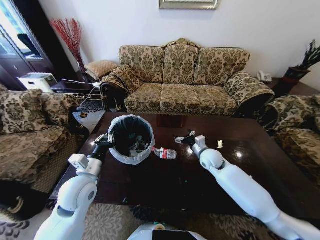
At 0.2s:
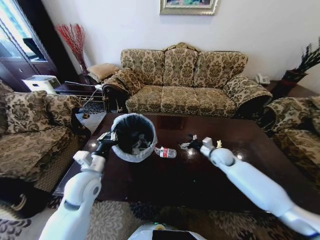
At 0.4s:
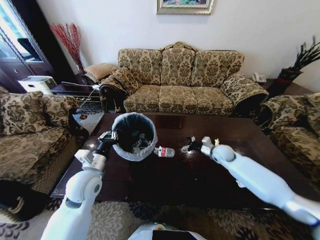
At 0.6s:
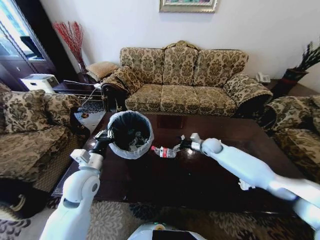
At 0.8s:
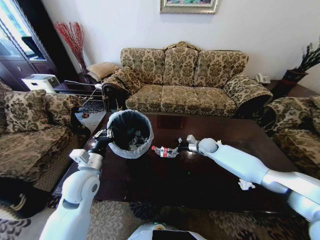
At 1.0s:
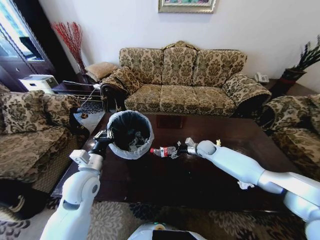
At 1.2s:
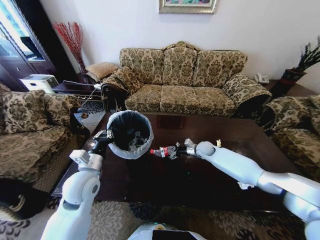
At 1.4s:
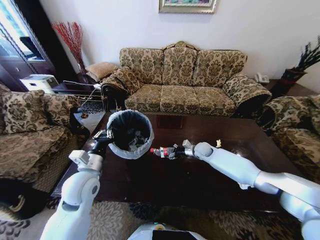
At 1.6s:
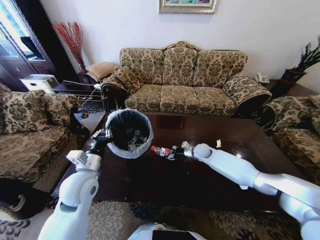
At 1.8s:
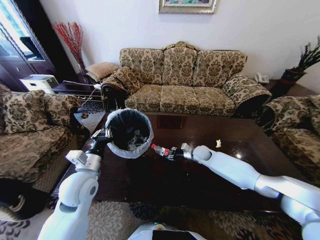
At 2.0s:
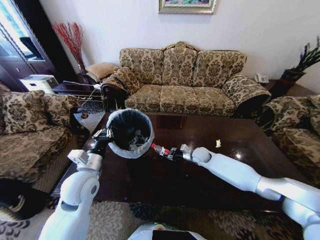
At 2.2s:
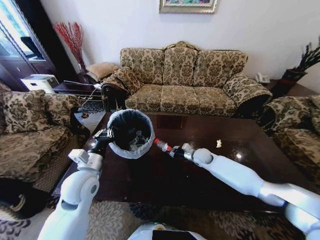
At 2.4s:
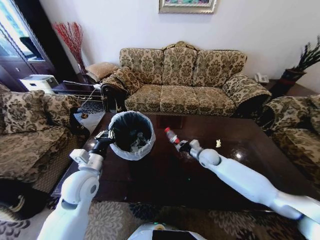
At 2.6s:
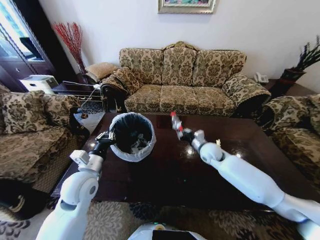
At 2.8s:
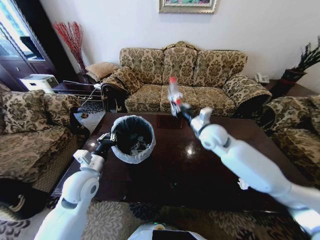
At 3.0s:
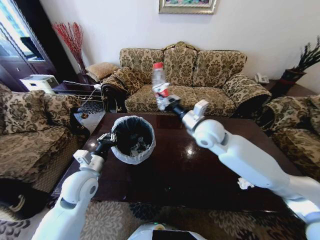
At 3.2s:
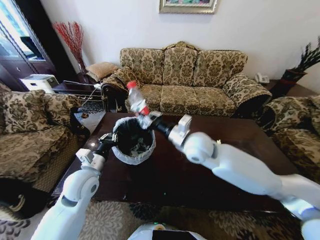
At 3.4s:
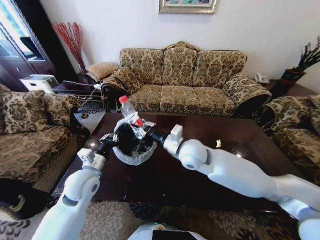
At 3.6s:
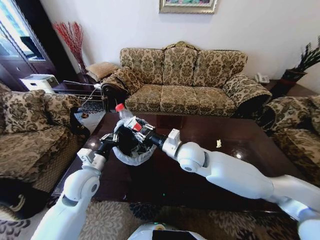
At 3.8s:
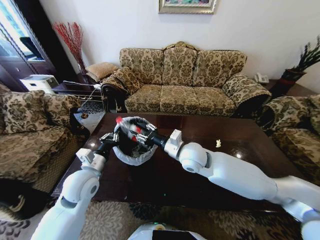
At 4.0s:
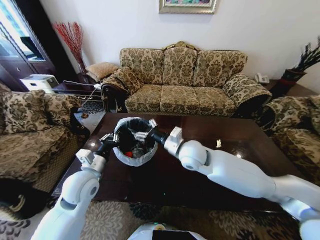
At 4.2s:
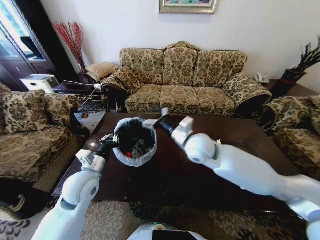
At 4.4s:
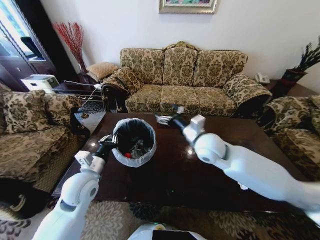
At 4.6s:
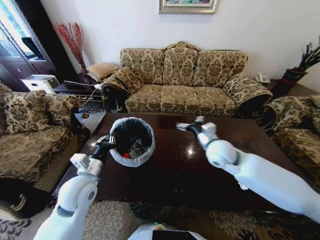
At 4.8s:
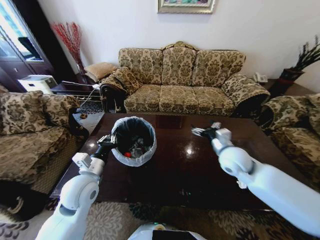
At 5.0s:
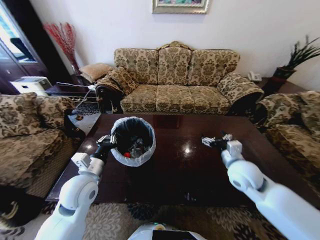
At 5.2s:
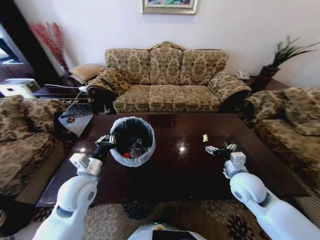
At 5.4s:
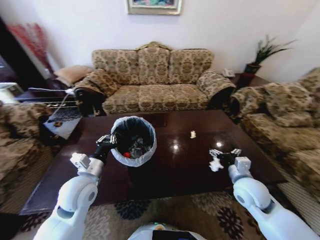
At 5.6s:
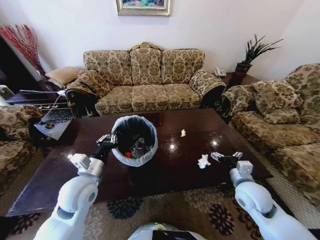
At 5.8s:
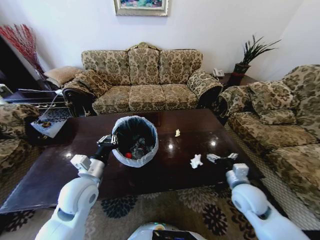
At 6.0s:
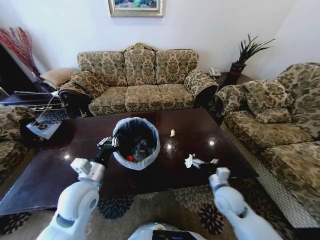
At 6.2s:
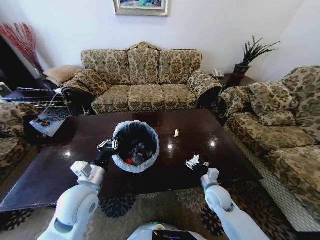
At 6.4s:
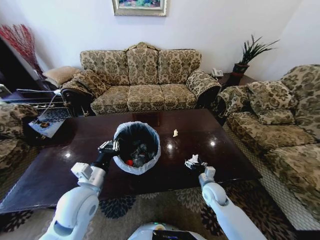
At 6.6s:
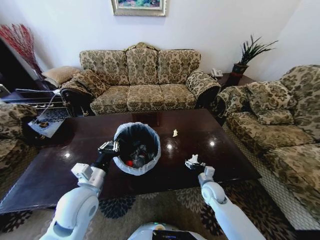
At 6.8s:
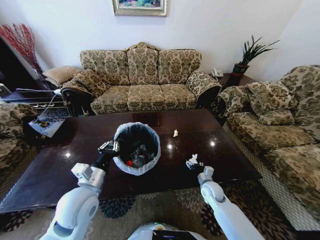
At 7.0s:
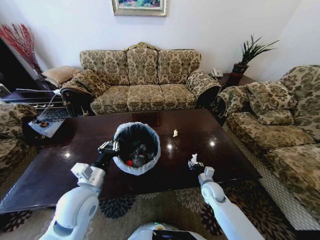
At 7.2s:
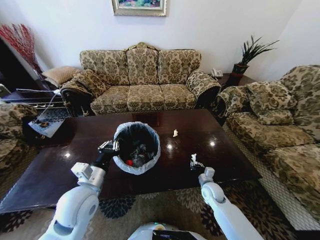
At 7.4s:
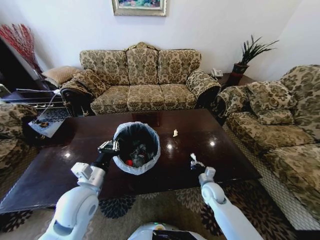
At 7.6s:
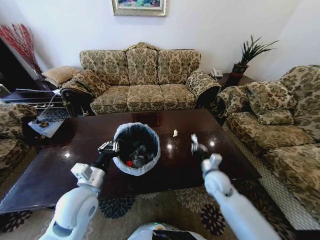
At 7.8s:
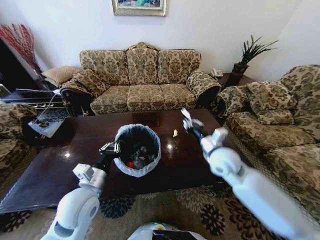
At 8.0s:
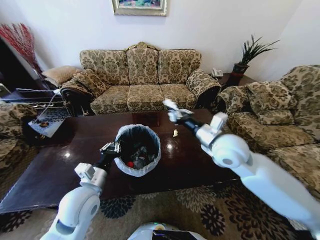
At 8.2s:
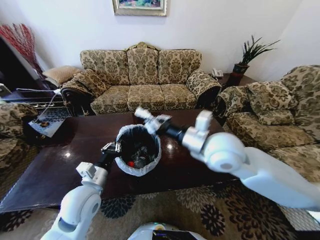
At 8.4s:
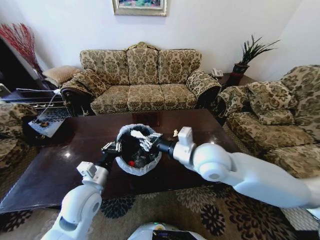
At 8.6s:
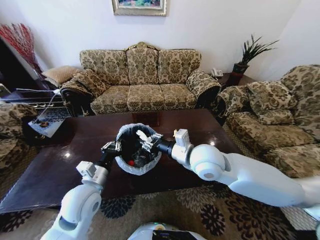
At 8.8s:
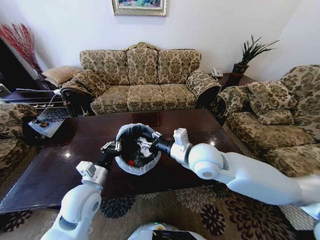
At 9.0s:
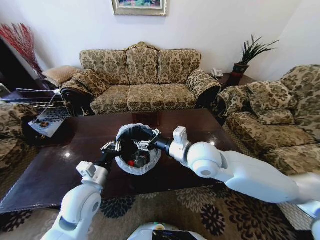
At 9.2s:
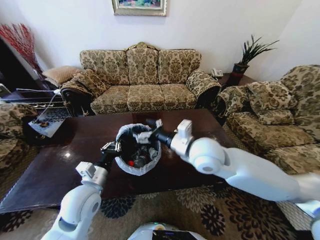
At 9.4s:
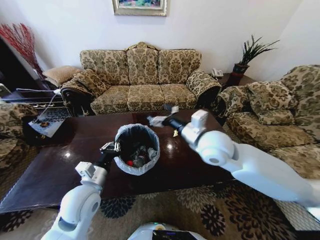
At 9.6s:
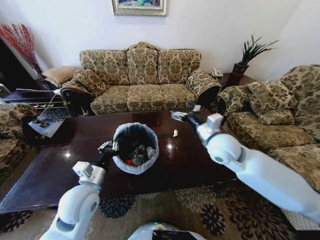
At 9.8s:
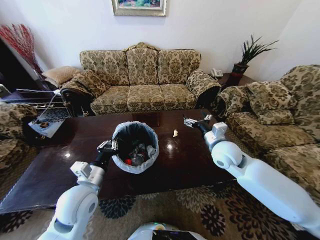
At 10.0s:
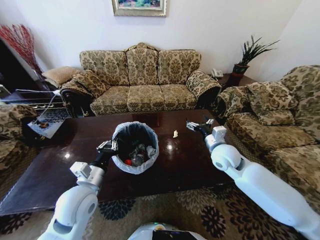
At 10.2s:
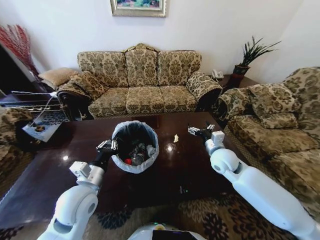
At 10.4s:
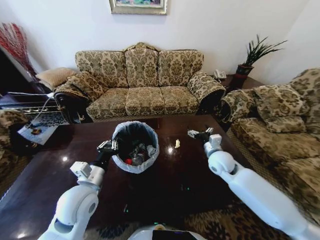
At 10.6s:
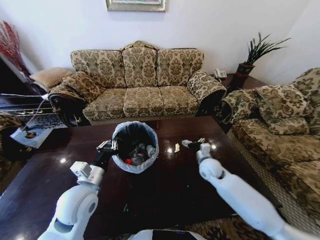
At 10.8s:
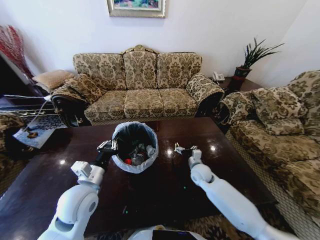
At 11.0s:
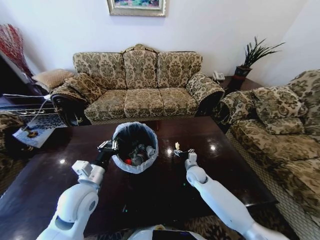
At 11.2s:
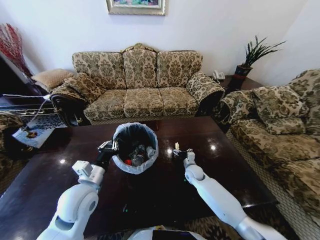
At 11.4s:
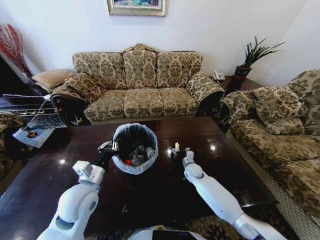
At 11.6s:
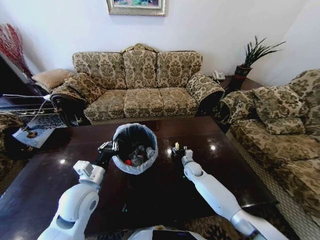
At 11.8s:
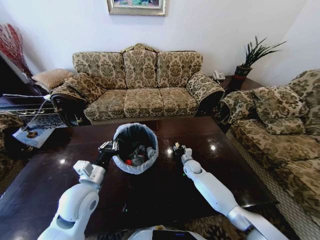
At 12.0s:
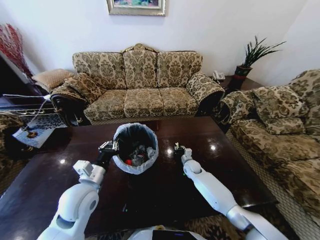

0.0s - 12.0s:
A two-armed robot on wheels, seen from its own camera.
Task of the whole recording: Move to the front of the table and place the trash on the table into the trash bin.
0.0s - 1.6s: The right gripper heads forward and downward, covering roughly 10 cm.
1.6s - 3.0s: The right gripper heads upward and backward, covering roughly 25 cm, and closes up.
3.0s - 4.4s: The right gripper opens its fingers.
4.4s - 6.0s: The right gripper shifts some 25 cm downward, backward and to the right.
6.0s - 7.6s: The right gripper travels forward by roughly 5 cm, reaches approximately 10 cm downward, then returns, and closes.
7.6s - 9.0s: The right gripper is displaced upward and to the left by roughly 25 cm, and opens up.
9.0s - 10.4s: The right gripper shifts approximately 20 cm downward, to the right and forward.
10.4s - 12.0s: The right gripper is displaced downward by roughly 20 cm, and closes.

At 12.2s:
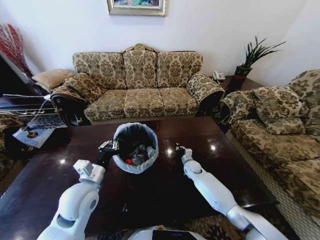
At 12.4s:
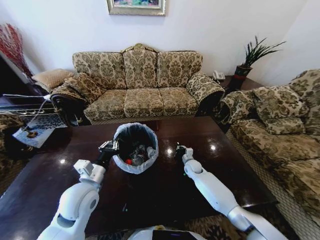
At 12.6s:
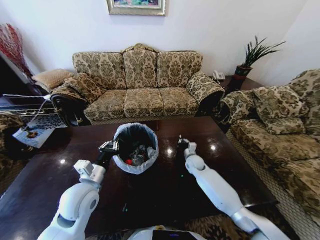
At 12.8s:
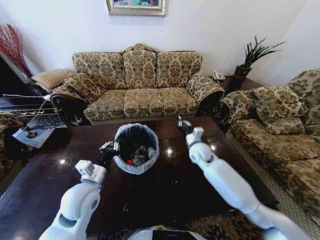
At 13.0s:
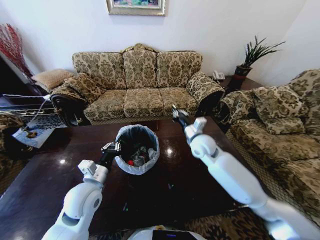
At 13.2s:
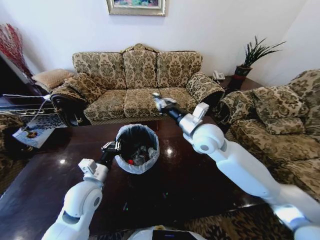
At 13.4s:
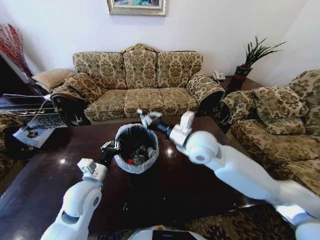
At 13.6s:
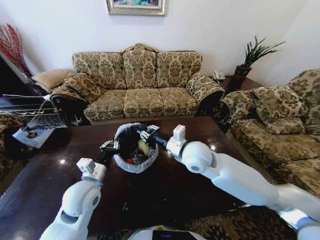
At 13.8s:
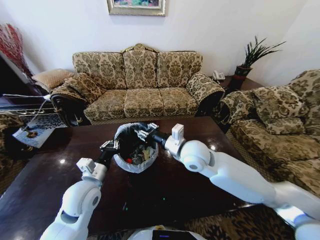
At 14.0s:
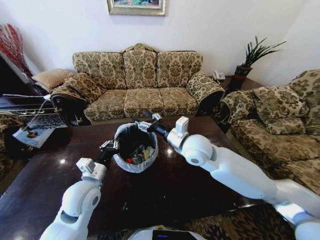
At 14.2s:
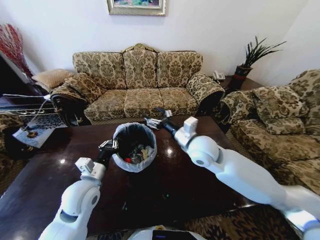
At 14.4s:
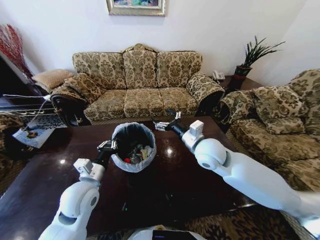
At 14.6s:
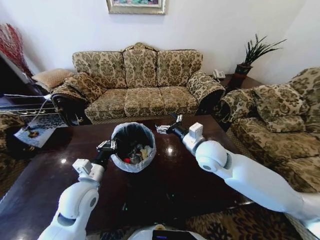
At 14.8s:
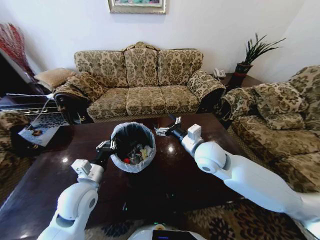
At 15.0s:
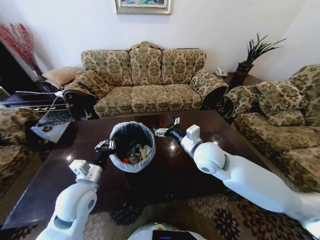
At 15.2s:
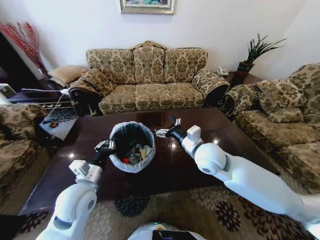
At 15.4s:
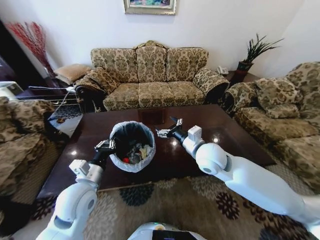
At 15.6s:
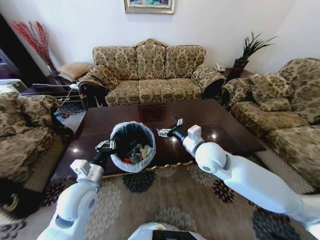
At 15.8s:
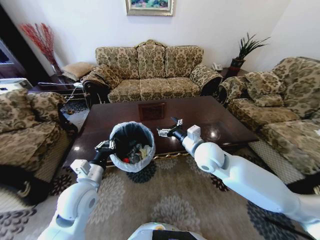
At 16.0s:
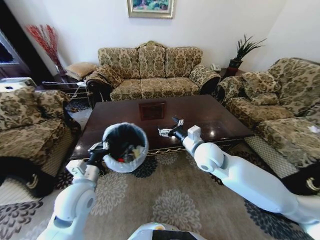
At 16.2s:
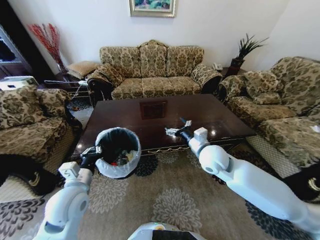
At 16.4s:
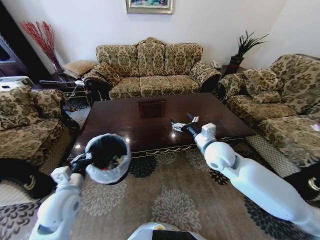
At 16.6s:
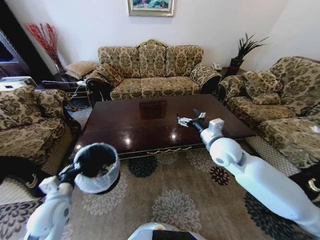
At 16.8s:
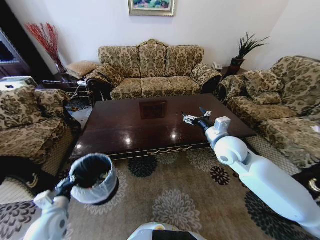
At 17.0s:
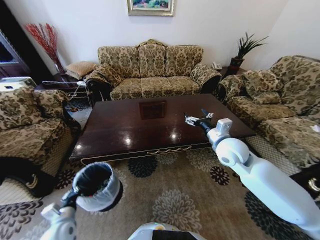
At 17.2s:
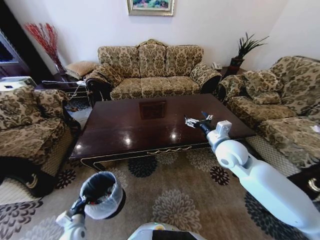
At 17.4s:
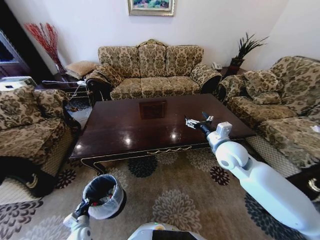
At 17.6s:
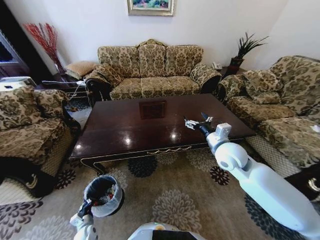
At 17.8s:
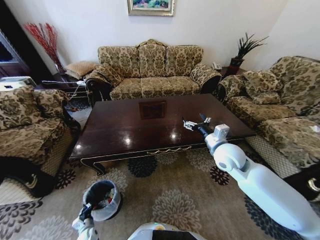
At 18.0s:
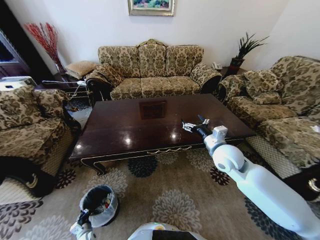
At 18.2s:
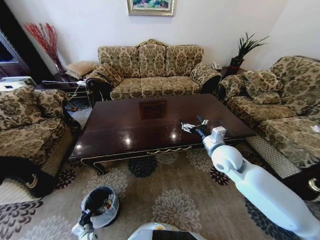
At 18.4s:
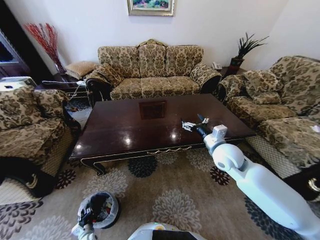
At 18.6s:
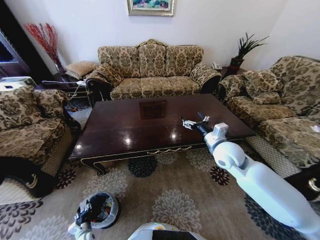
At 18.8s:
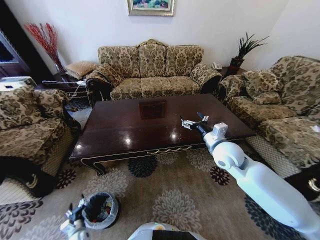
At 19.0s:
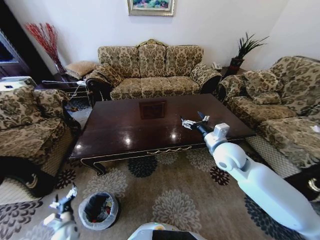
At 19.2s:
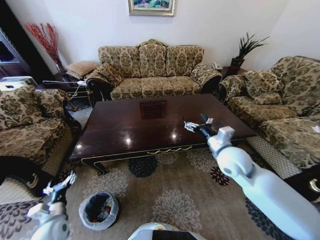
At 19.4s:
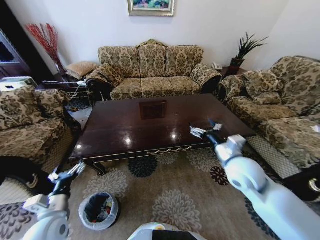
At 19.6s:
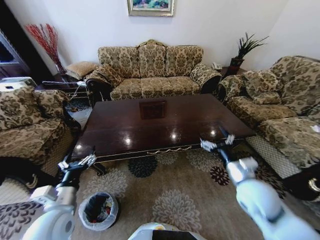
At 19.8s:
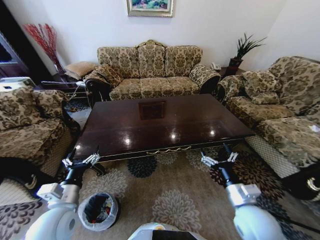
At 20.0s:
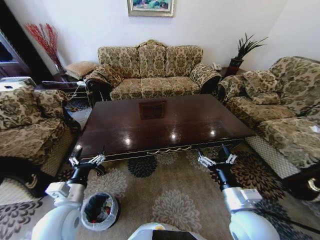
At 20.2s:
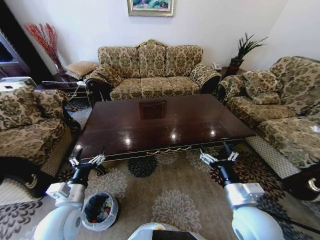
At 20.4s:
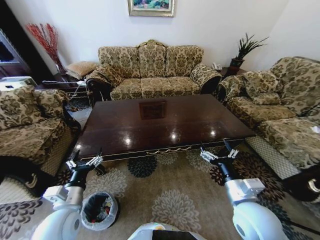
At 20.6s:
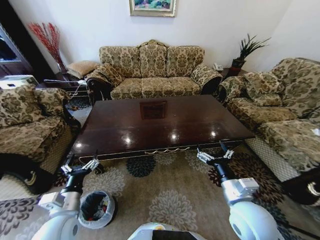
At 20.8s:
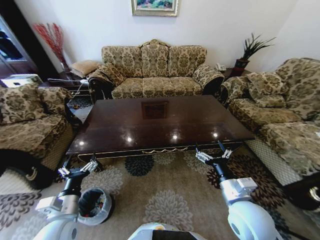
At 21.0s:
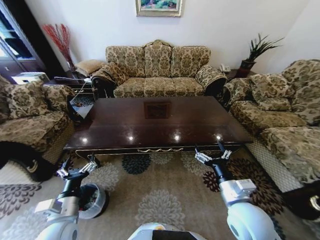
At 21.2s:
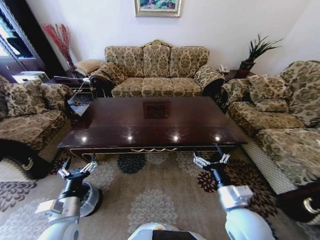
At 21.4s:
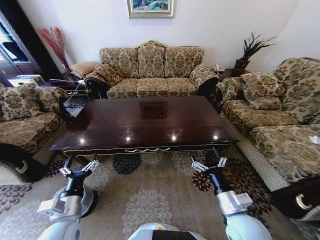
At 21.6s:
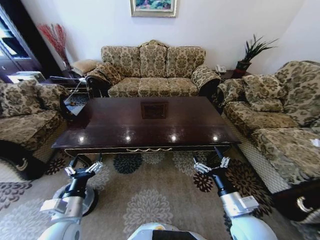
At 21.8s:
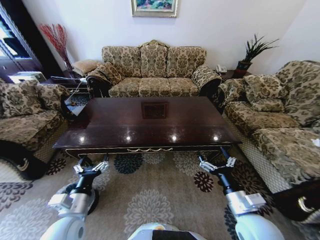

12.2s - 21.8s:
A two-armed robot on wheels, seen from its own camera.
Task of the whole recording: Move to the front of the table and place the trash on the table into the trash bin.
12.2s - 13.8s: The right gripper travels upward by about 30 cm, and opens up.
13.8s - 15.4s: The right gripper is displaced to the right by approximately 5 cm, and opens its fingers.
15.4s - 17.0s: The left gripper is displaced downward, to the left and backward by about 25 cm; the right gripper is displaced to the right by roughly 10 cm.
17.0s - 18.6s: The left gripper heads downward, covering some 25 cm, and opens its fingers.
18.6s - 20.2s: The right gripper heads backward, covering roughly 20 cm. The left gripper goes about 40 cm upward, and opens.
